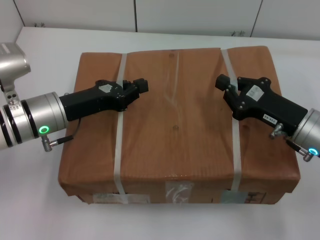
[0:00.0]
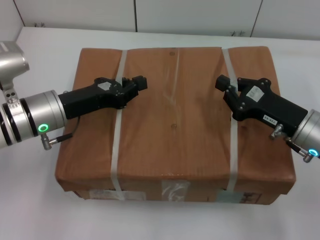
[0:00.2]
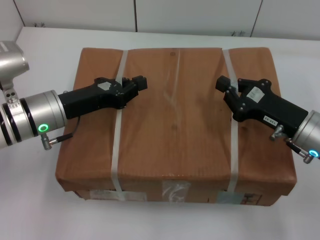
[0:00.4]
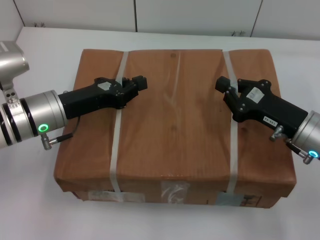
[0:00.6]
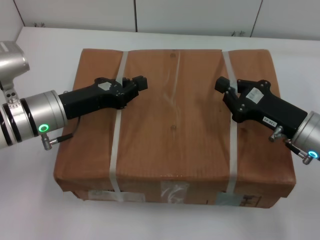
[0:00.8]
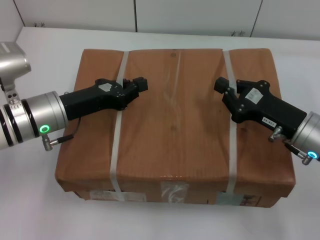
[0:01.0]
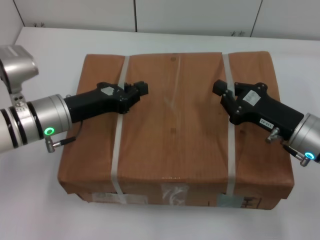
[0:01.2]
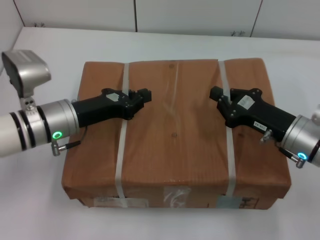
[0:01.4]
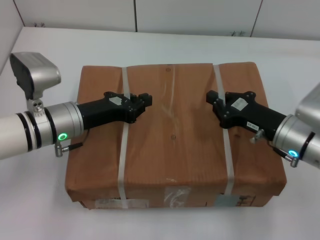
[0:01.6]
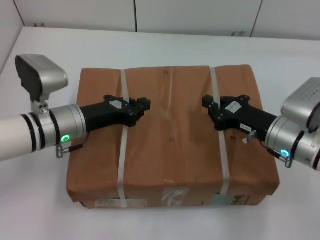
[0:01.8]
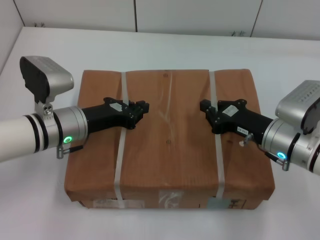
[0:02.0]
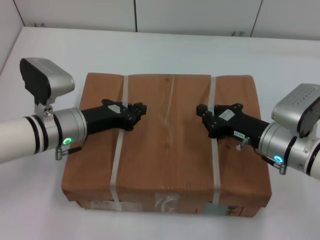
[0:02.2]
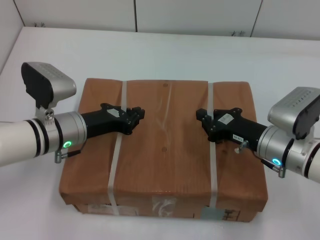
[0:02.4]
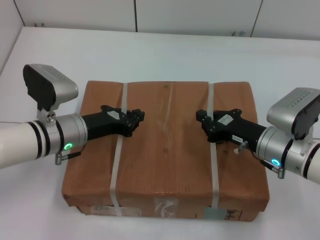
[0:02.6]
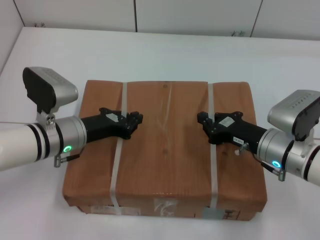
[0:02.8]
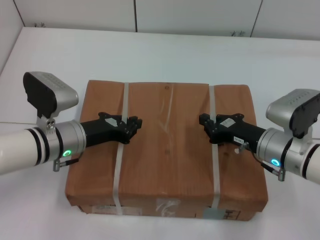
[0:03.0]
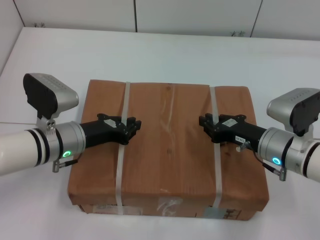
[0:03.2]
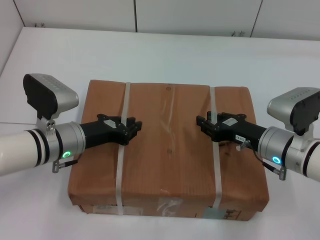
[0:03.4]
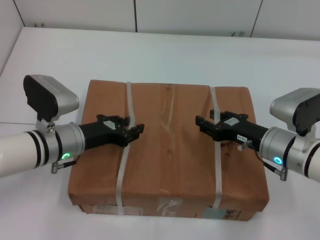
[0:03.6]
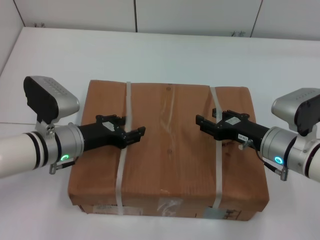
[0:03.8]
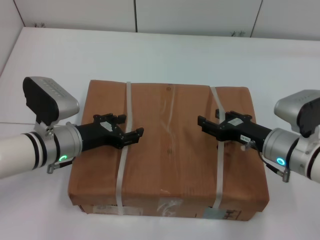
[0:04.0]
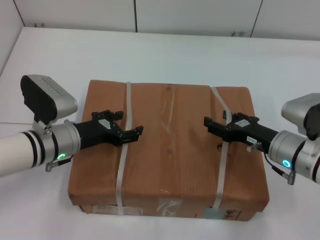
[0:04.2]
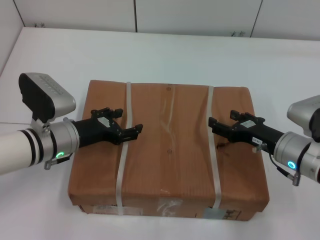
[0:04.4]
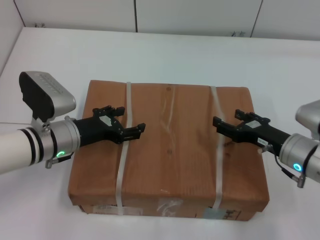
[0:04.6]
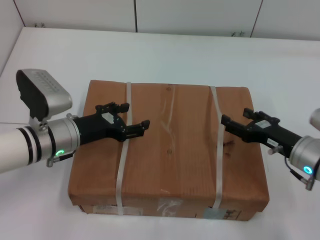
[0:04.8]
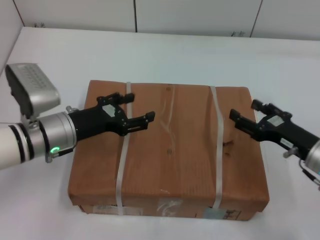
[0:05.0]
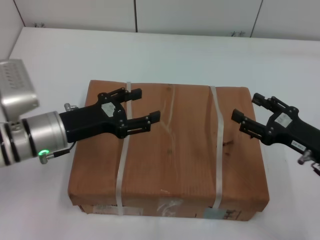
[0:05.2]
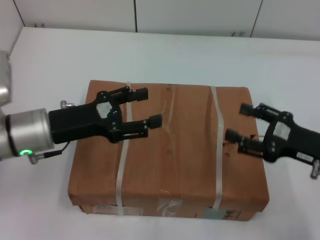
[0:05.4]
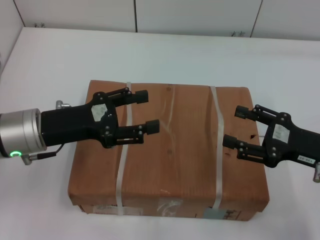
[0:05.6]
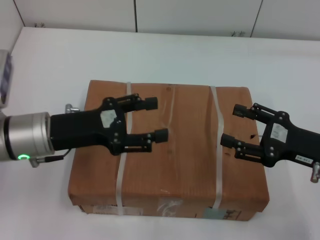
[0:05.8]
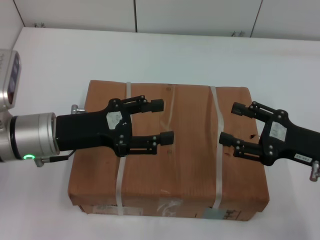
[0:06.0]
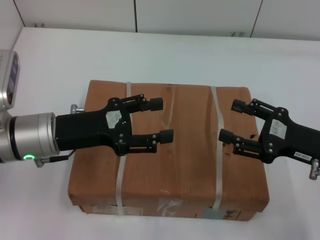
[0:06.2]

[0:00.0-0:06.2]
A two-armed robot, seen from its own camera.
Task of the whole recording: place the box on the table with both arms.
Step, 0:00.0 to 0:03.2: Place the box on the table with left gripper.
Step, 0:00.0 to 0:03.2: Place the box on the table with right gripper.
Step, 0:03.4 to 0:04.4: Loosen the box on the table with left gripper.
Step, 0:03.4 to 0:04.4: Loosen the box on the table with right gripper.
0:03.2 to 0:04.6: The right gripper opens. Meanwhile the left gripper opens its fingers.
0:04.6 to 0:06.2: The two grippers go some 5 cm upward.
